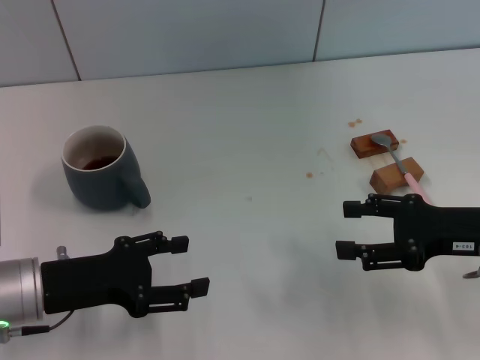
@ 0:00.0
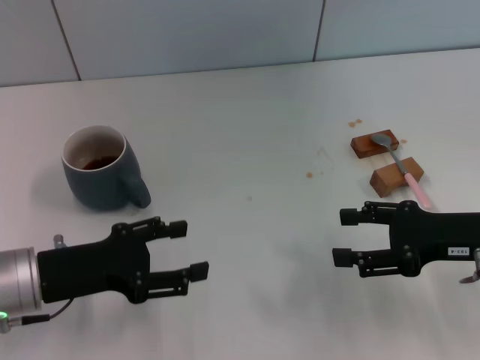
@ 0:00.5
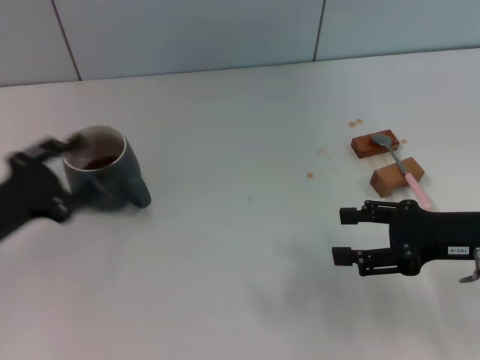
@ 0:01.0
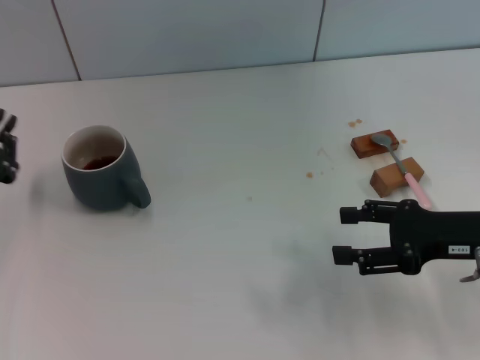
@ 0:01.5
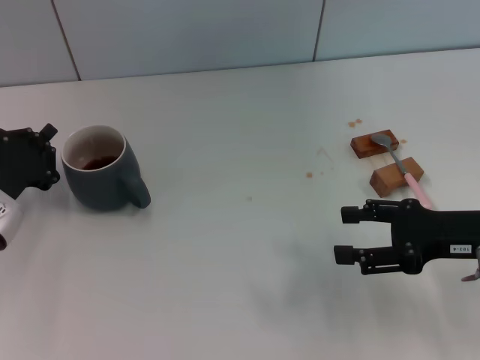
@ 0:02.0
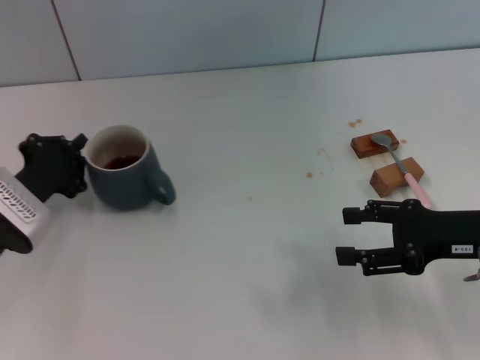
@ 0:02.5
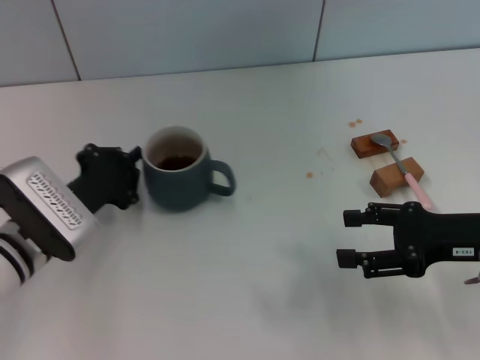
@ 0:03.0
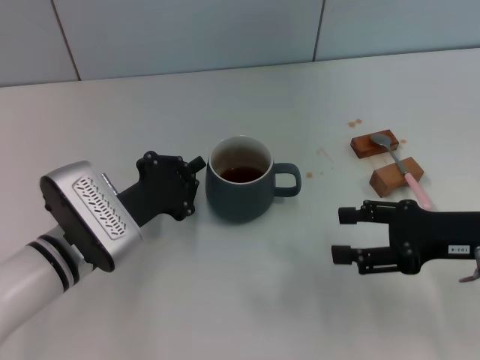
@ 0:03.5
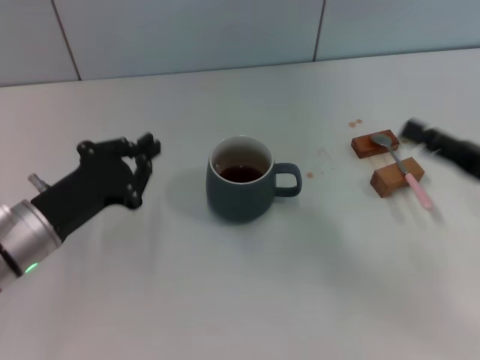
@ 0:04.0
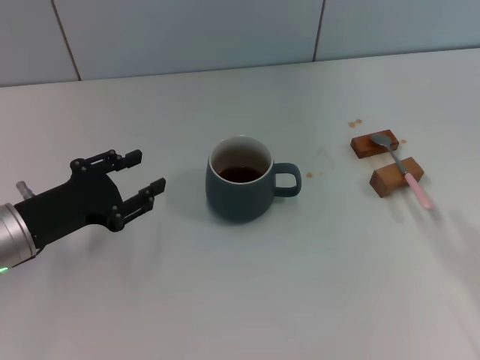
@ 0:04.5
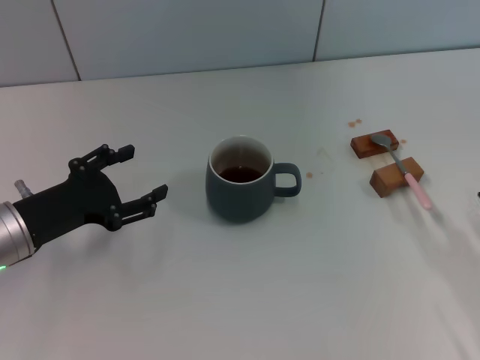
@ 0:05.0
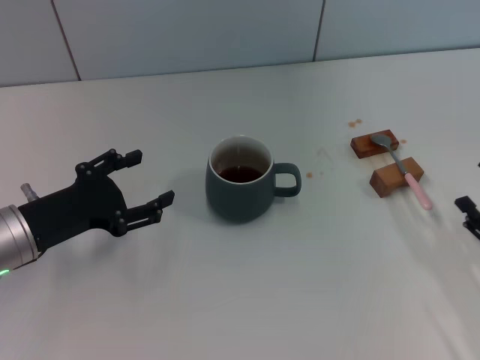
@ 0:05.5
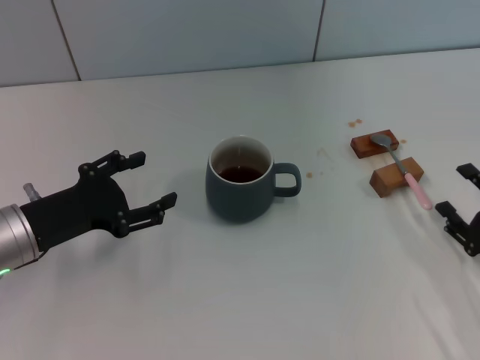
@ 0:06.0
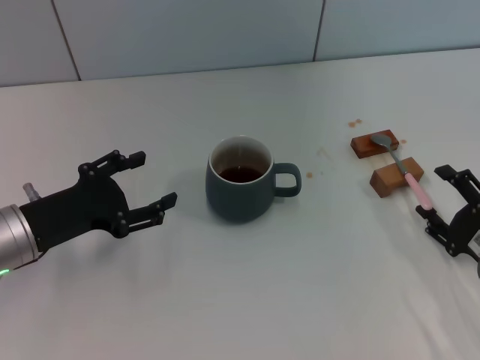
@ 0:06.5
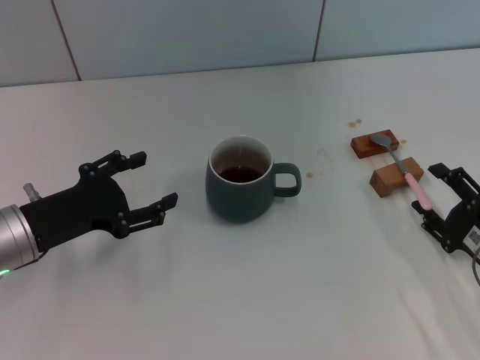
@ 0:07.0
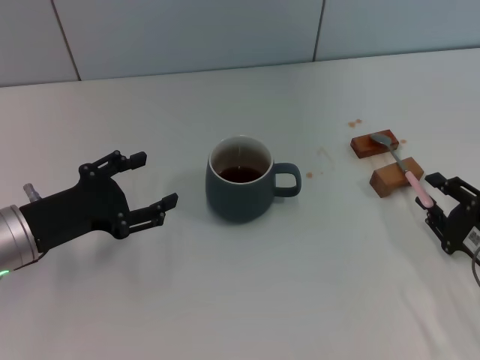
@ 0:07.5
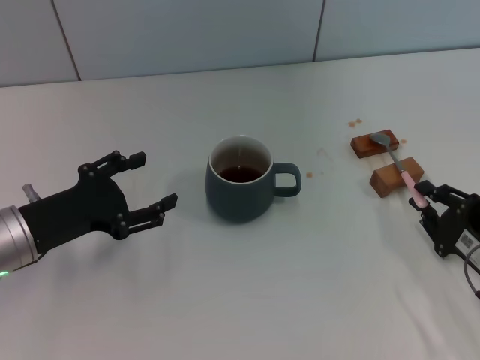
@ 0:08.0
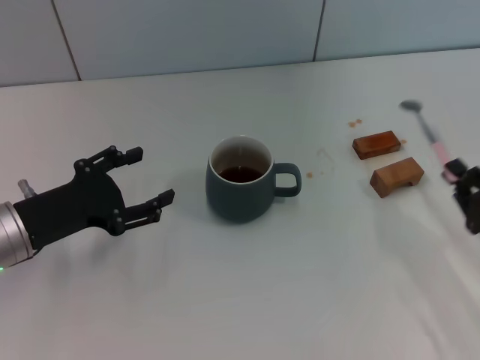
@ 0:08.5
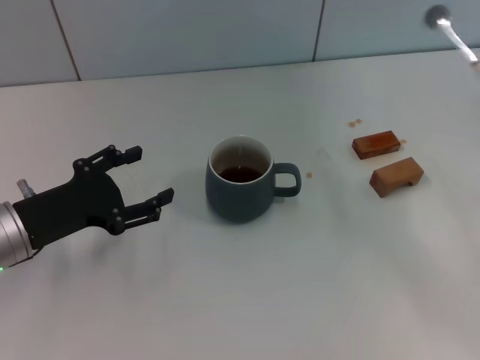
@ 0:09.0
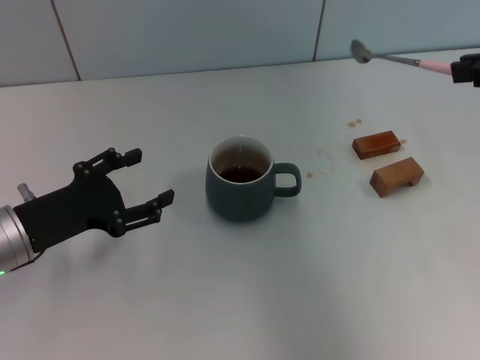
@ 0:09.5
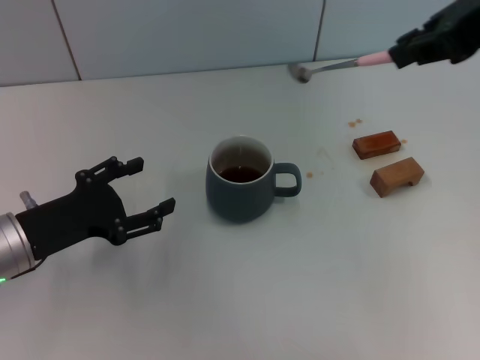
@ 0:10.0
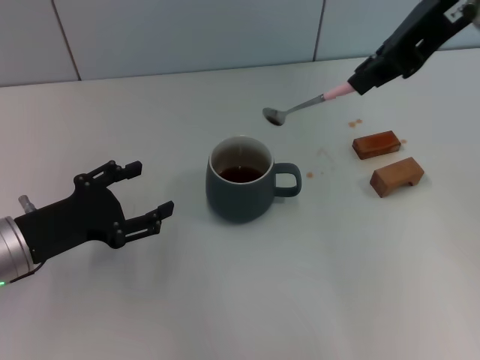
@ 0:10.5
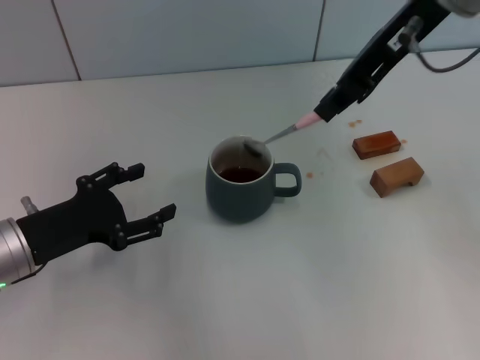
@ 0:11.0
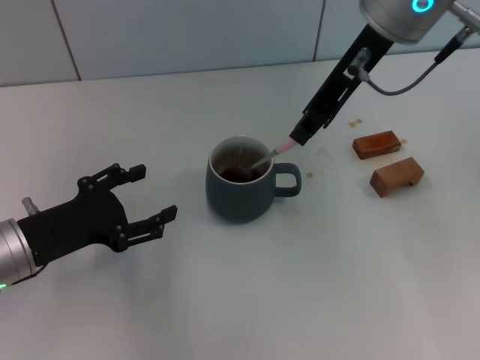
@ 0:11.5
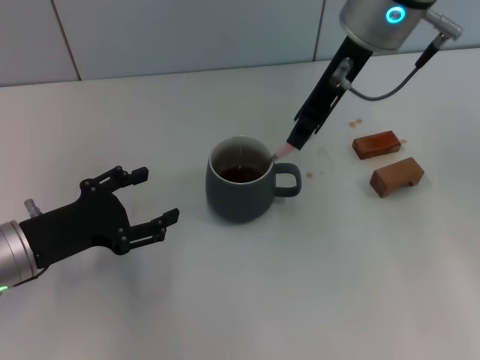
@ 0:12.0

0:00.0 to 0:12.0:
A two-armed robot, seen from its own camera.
Task of the whole recording: Move the grey cup to the center, lift the pink spoon, stir it three times in the cup, and put the spoon into the cup.
Step, 0:00.0 to 0:04.0: Move the cup with coffee to the center of view with the left gripper.
Step, 0:04.5 to 0:08.5: Pick up the spoon with the right gripper.
0:00.0 to 0:02.0: The left gripper shifts roughly 5 cm forward, and closes up.
0:02.0 to 0:04.0: The left gripper goes about 5 cm to the right.
0:04.0 to 0:06.0: The left gripper opens up; the right gripper moves downward and backward, approximately 10 cm.
0:06.0 to 0:08.0: The right gripper closes.
0:08.0 to 0:10.0: The right gripper travels upward by roughly 35 cm, and closes up.
0:10.0 to 0:12.0: The right gripper travels to the left, forward and downward by roughly 15 cm.

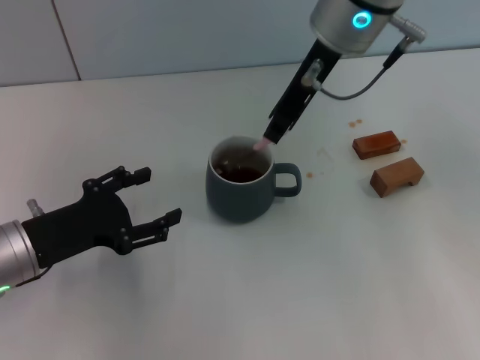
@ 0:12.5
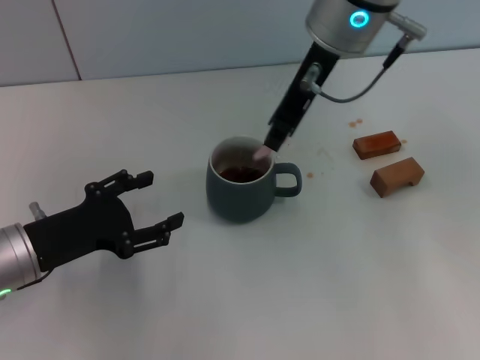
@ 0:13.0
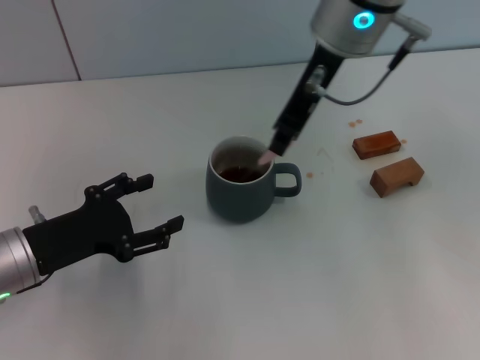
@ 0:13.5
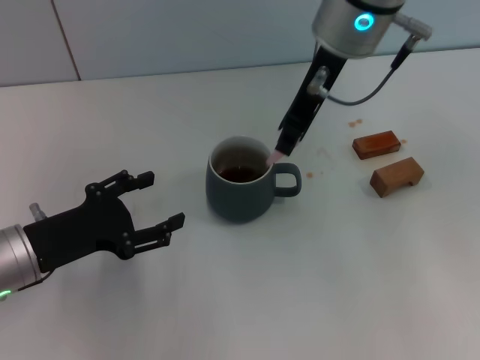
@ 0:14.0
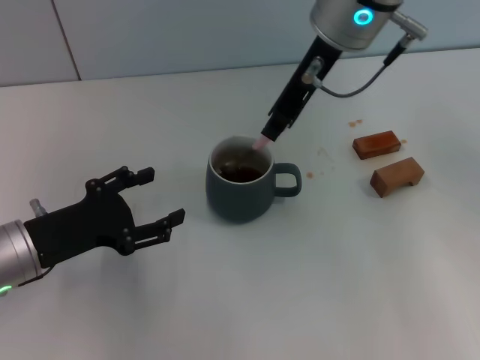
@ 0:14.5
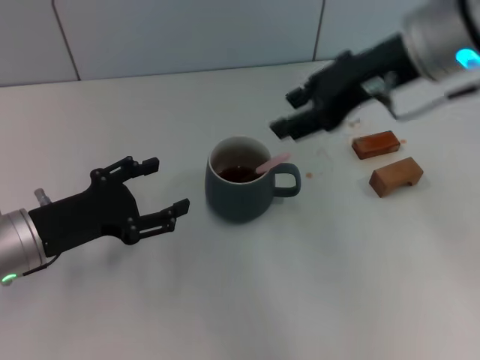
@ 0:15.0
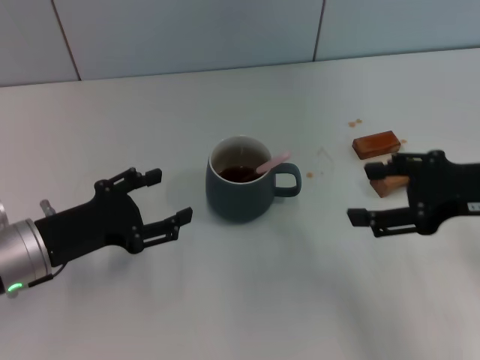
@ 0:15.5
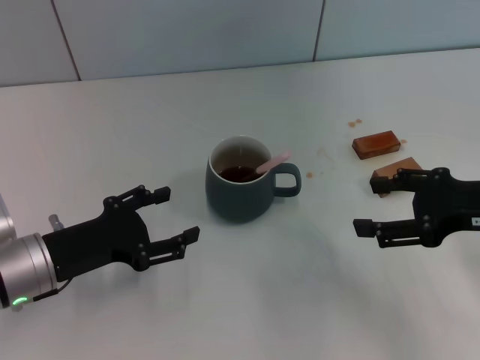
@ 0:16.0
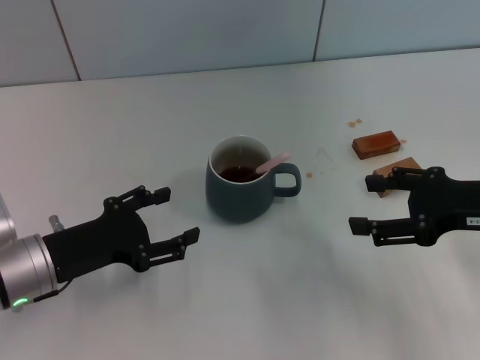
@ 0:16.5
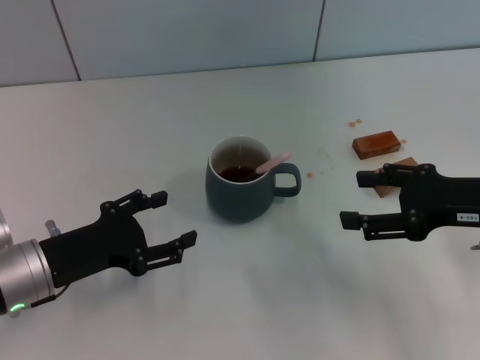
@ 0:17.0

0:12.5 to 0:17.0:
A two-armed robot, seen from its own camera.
Task of the whole recording: Move the grey cup to the center, lift the pink spoon, stir it three times in the cup, and put the spoon into the cup.
Step, 0:12.5 to 0:14.5: Stir the coffee in the cup with the right gripper.
0:12.5 to 0:14.5: The grippers move only a little.
0:14.5 to 0:17.0: The right gripper is displaced to the right, backward and downward by approximately 25 cm, and opens.
